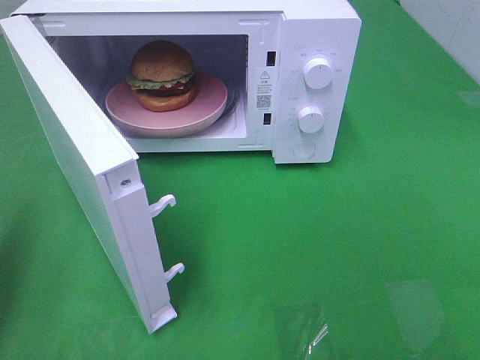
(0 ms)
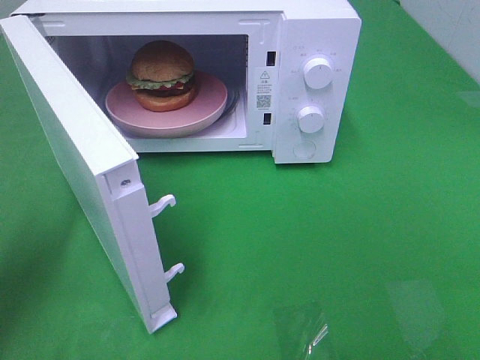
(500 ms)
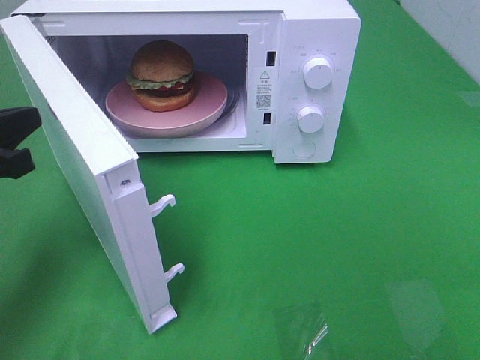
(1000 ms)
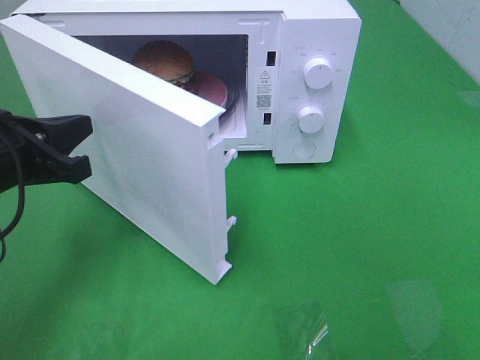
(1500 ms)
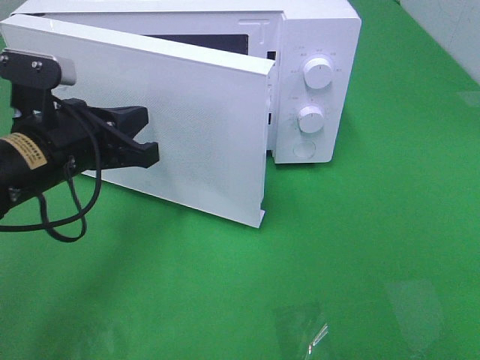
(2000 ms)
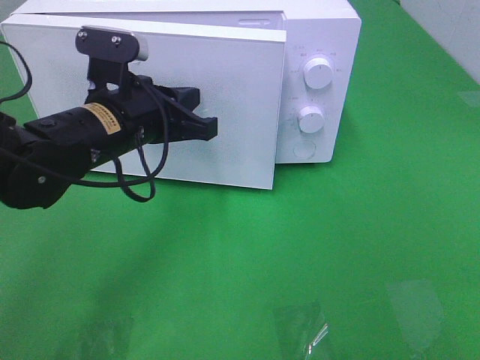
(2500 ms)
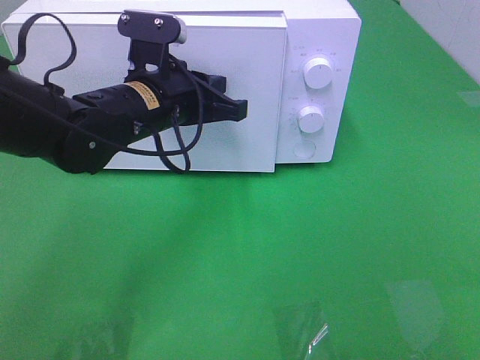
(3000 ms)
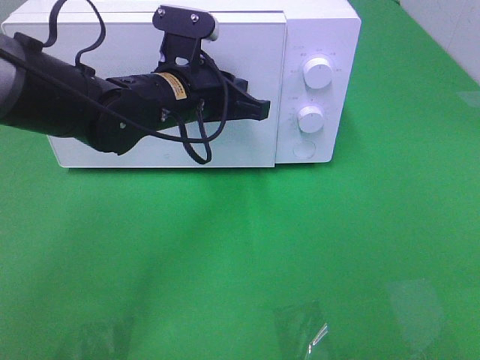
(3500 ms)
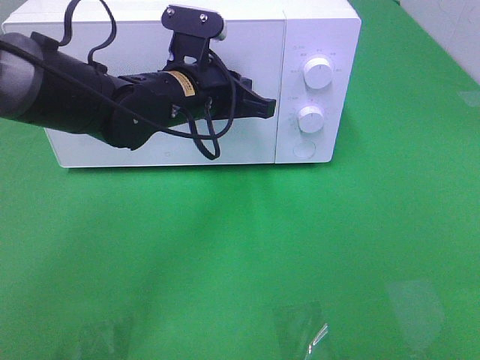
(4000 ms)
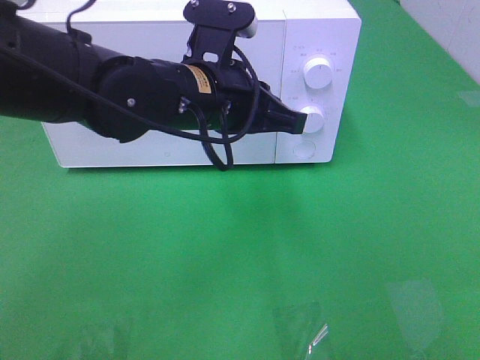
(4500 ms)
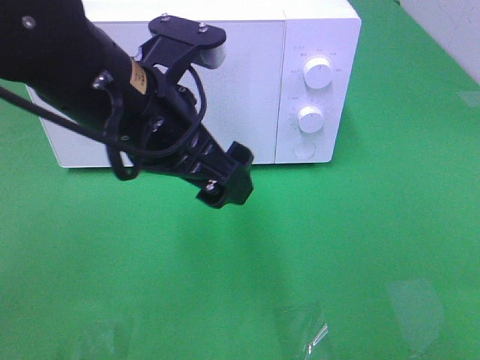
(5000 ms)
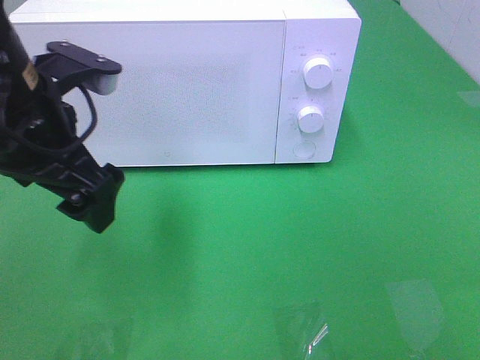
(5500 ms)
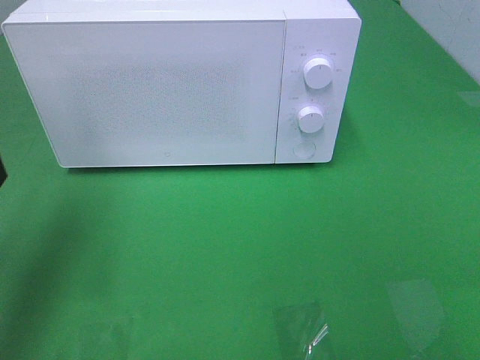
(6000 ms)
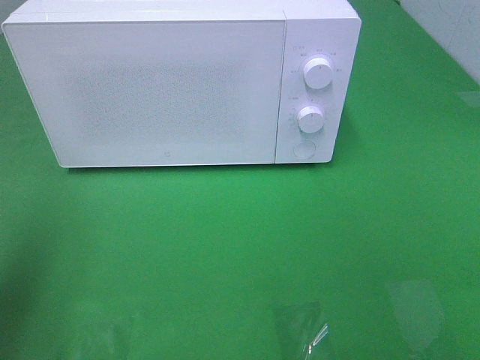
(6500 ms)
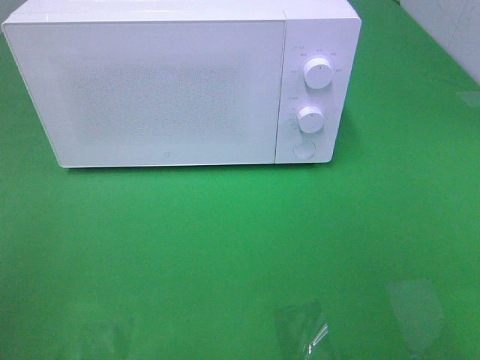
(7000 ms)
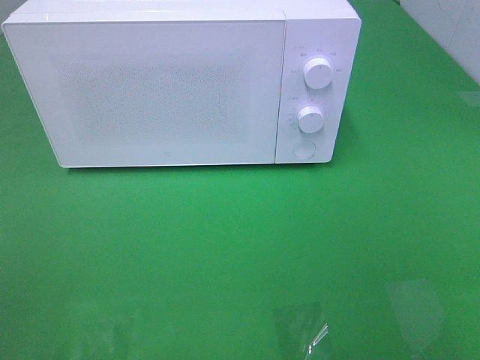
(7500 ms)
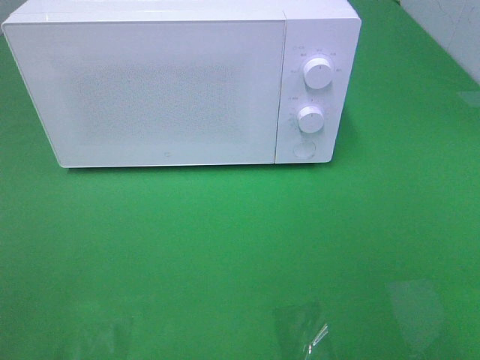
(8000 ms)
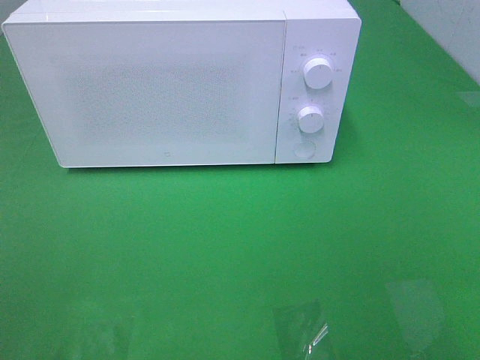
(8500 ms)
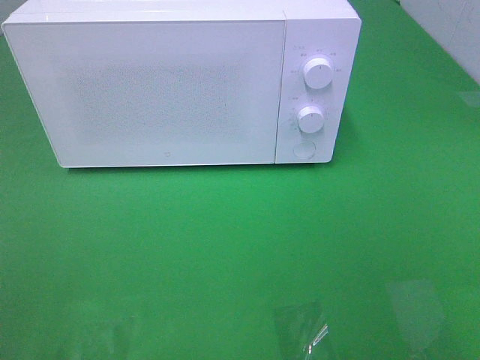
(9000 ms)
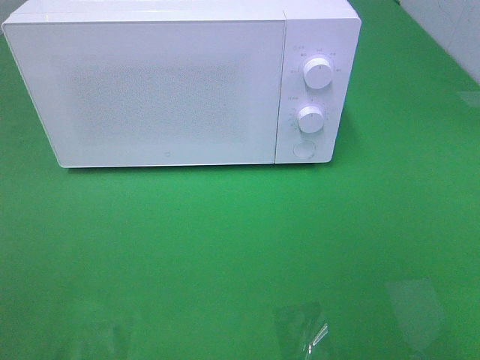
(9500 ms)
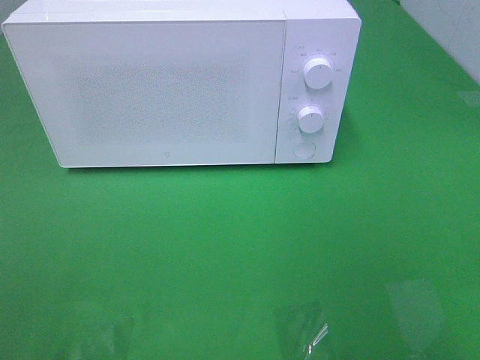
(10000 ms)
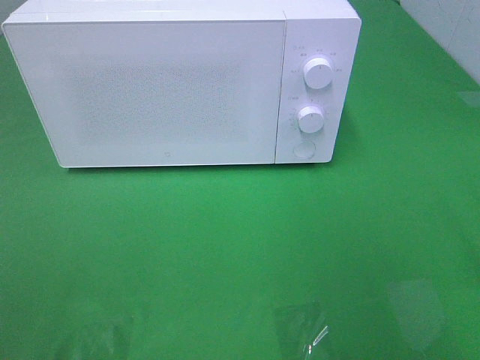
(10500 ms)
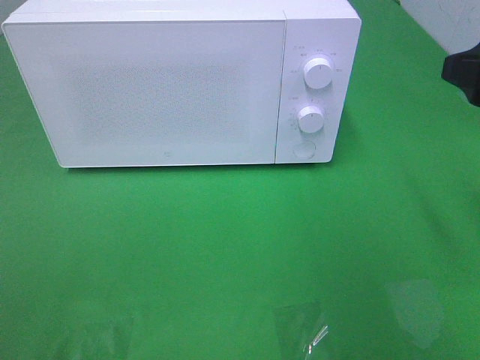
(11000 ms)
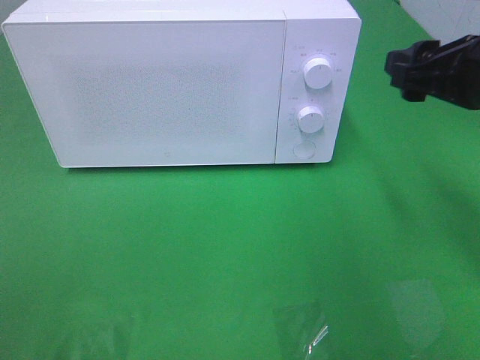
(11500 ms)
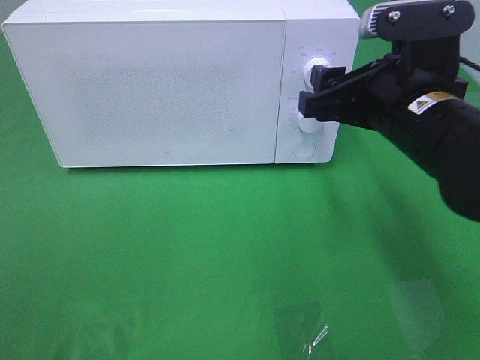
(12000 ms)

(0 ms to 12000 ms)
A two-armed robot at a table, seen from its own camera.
Task of the whole recording: Heat the burger.
Step, 0 ms - 4000 ms: Left hand: close the microwave door.
0 ms - 2000 ms: The left gripper shifts about 20 cm to the right, forward and downward.
2000 ms - 4000 ms: The left gripper heads to the right and forward, covering roughly 15 cm.
4000 ms - 6000 ms: The left gripper is displaced to the left, backward and upward by some 25 cm, and opens its fingers.
6000 ms - 8000 ms: The left gripper is displaced backward by about 25 cm.
10000 ms - 12000 ms: The right gripper goes approximately 25 cm forward, to the left and downward.

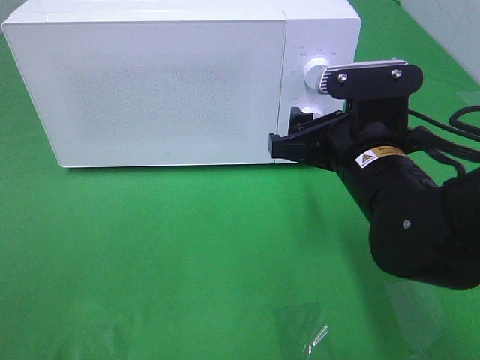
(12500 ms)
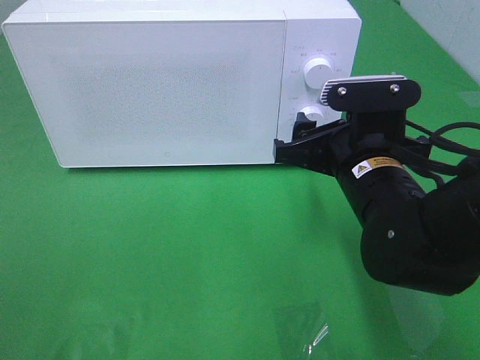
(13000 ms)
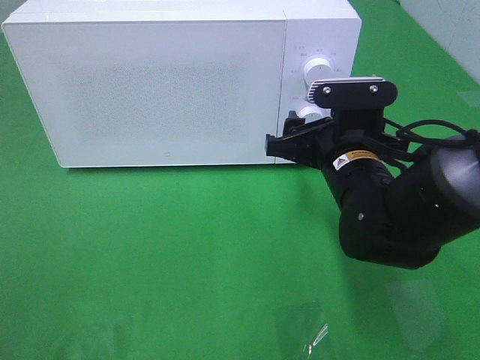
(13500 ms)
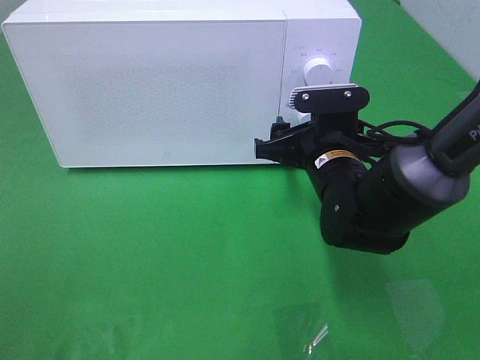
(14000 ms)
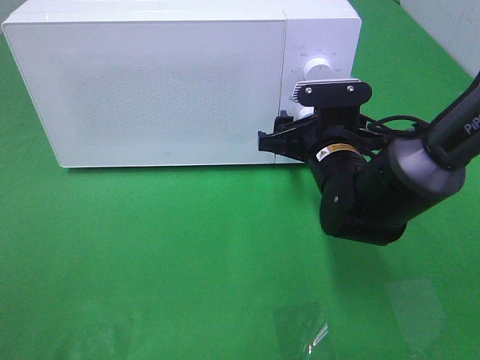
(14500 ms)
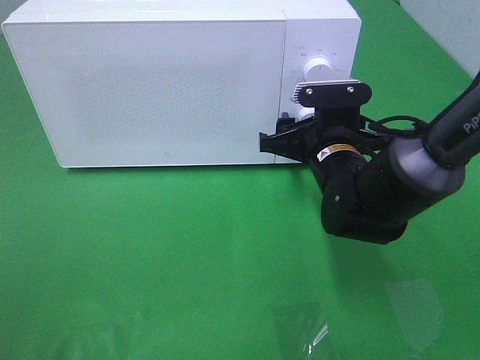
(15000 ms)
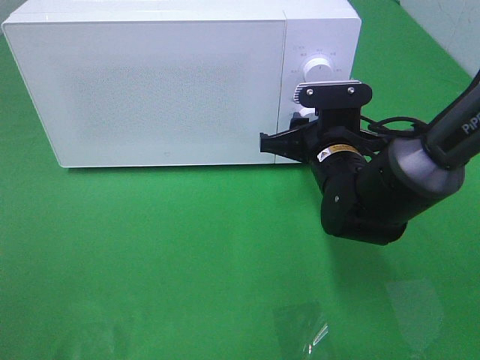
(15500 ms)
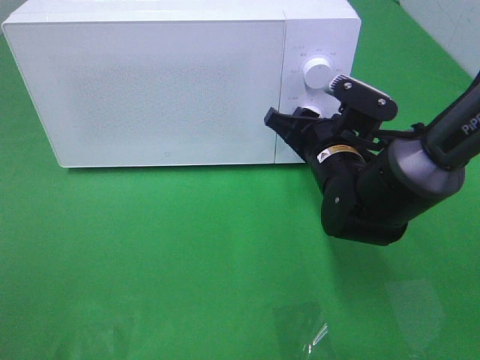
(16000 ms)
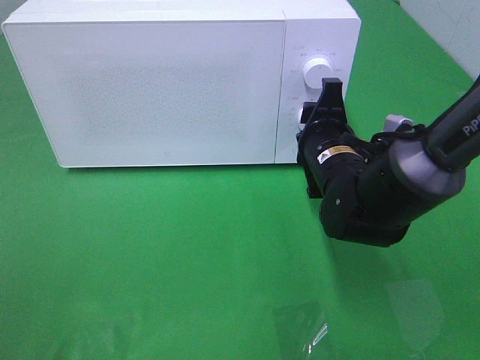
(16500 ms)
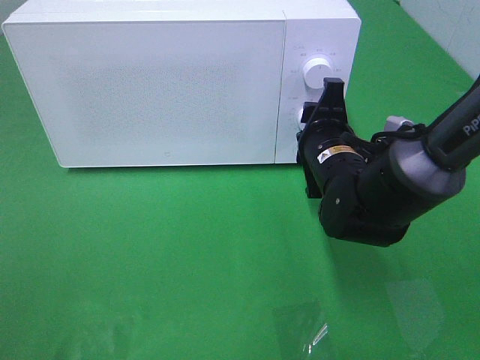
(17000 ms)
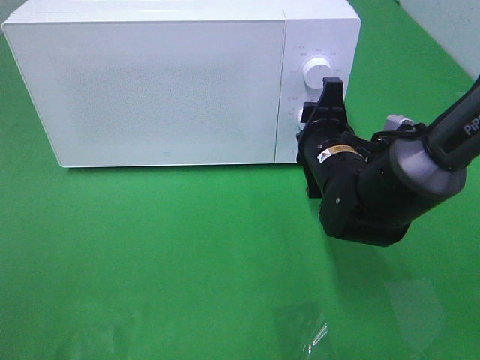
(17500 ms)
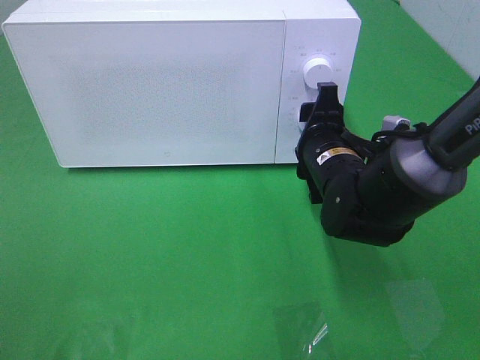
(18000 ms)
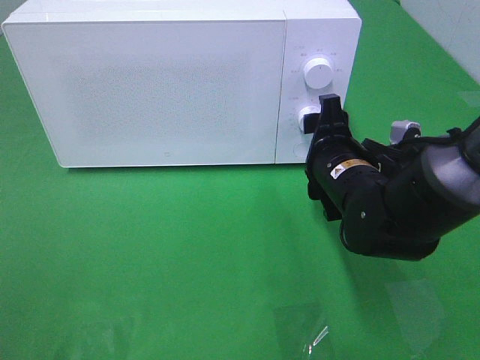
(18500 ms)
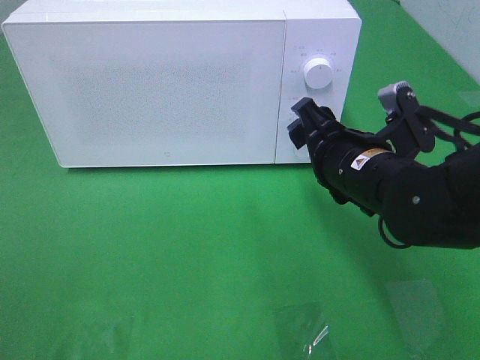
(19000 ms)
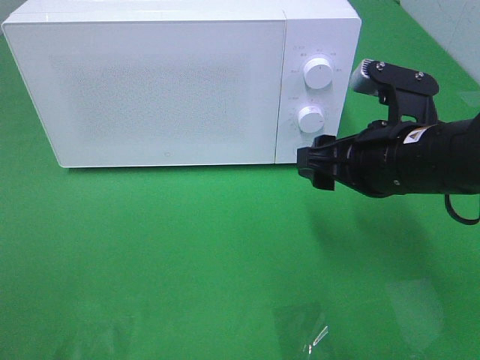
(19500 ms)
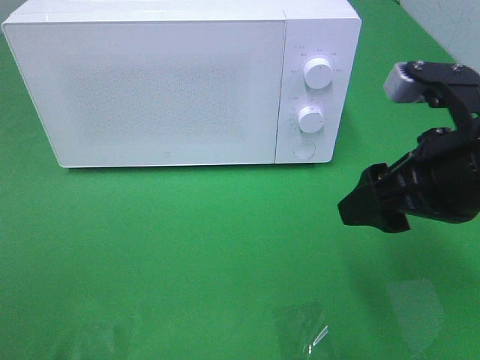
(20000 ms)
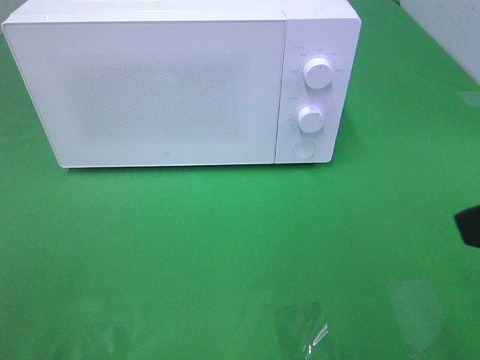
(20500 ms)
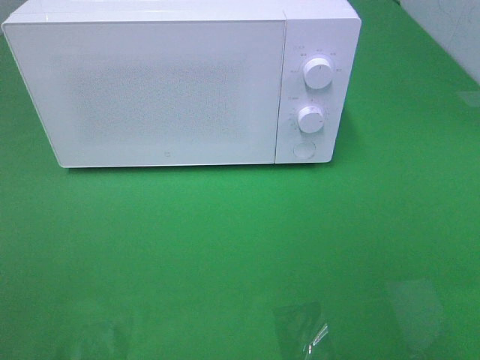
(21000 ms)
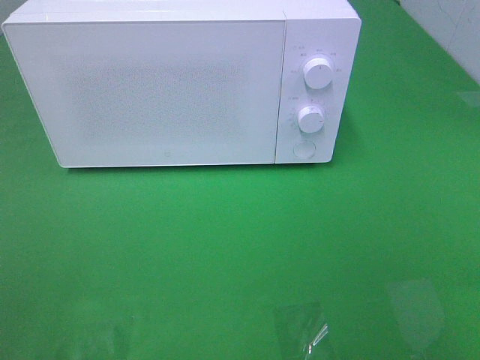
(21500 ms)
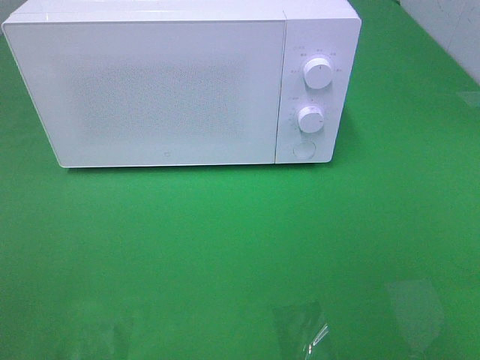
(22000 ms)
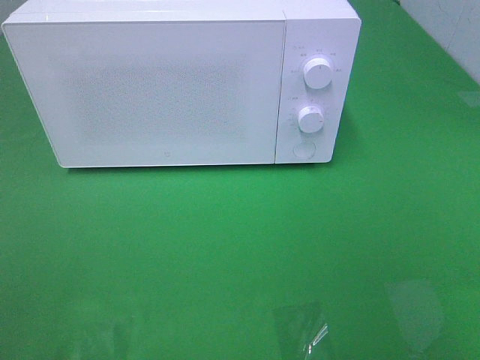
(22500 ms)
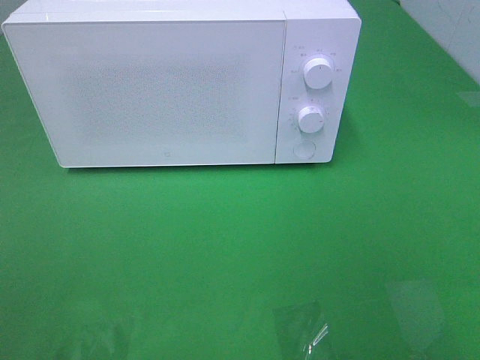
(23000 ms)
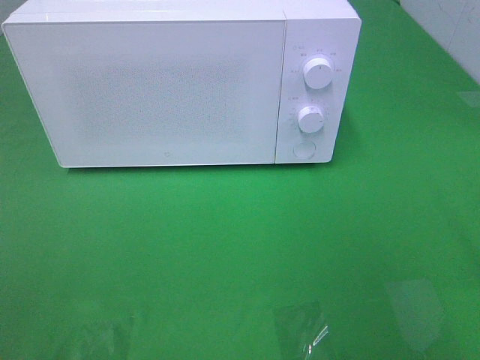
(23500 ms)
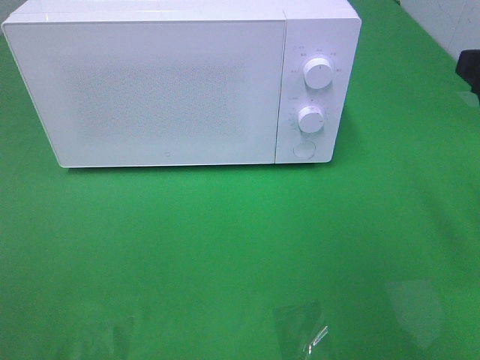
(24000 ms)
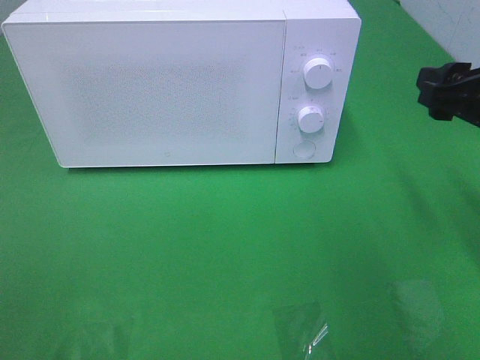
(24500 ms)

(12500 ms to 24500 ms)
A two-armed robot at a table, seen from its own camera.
Task of the whole recording: Heat the burger.
Step, 12500 ms - 17500 ms: Right hand: twist timer button.
12500 ms - 14500 ms: The right gripper is displaced forward and downward by some 10 cm.
16500 ms - 18500 ms: There are only small adjustments of the grippers.
18500 ms - 20500 ms: The right gripper travels upward, backward and to the right by approximately 30 cm.
22500 ms - 24500 ms: The right gripper shifts approximately 25 cm forward.

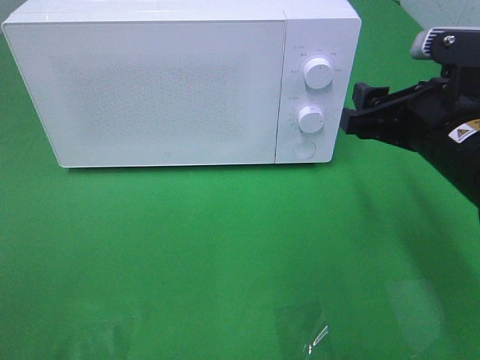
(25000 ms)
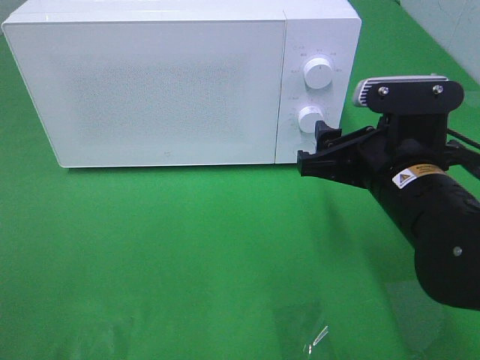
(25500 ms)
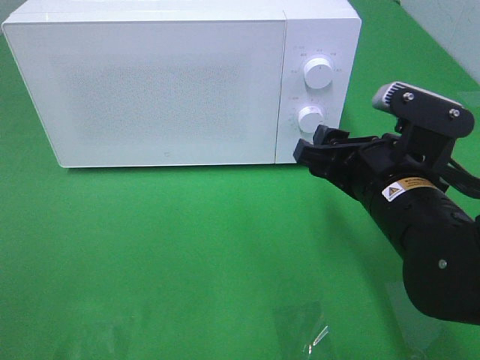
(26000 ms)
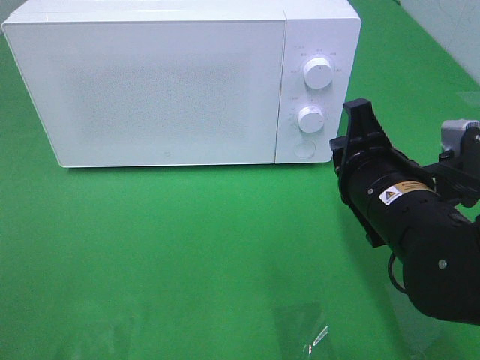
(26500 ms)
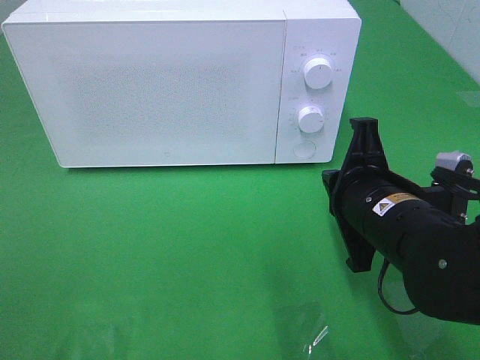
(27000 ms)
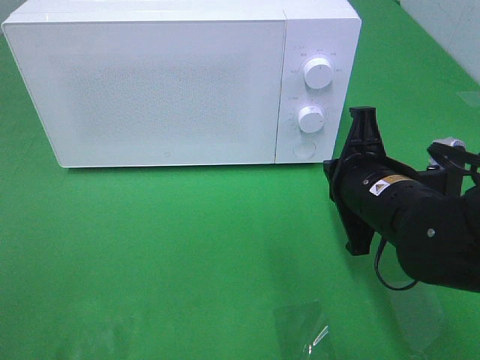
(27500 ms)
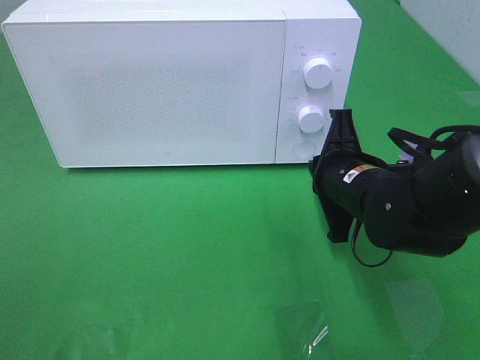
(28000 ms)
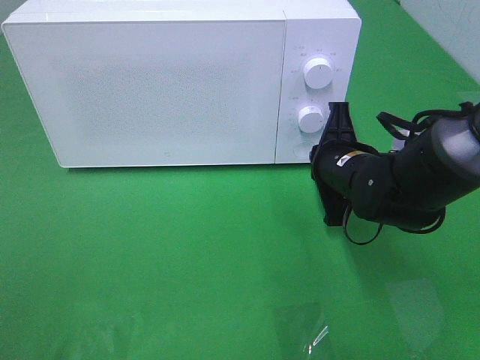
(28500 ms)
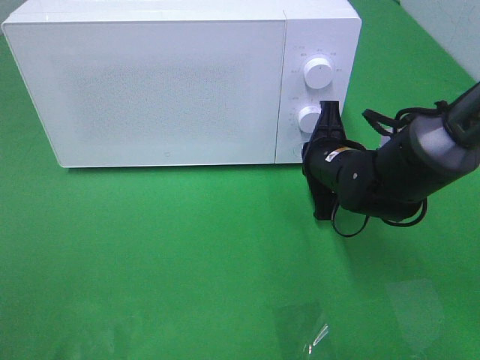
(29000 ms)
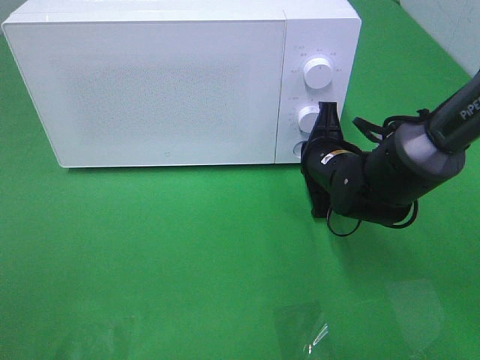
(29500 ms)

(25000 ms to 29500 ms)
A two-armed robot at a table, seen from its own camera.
Task of the whole recording: Heat the burger.
25000 ms - 27000 ms: The right gripper heads downward and to the left, covering approximately 10 cm, and closes.
27000 ms - 29500 ms: The right gripper is displaced forward and downward by about 15 cm.
